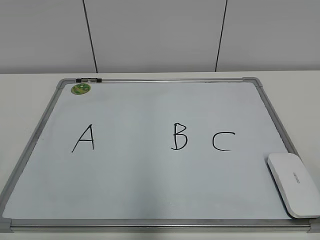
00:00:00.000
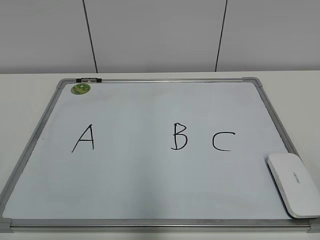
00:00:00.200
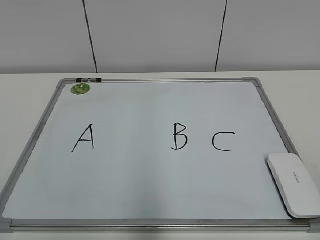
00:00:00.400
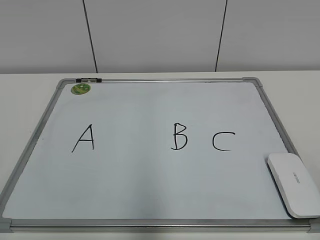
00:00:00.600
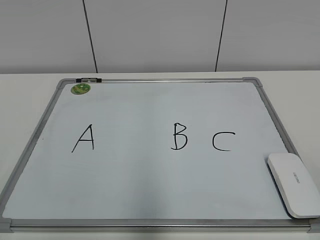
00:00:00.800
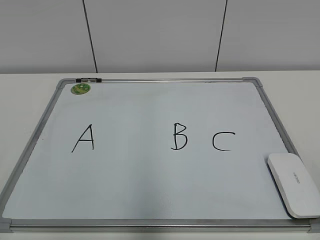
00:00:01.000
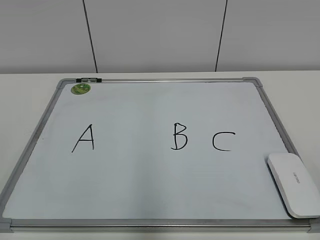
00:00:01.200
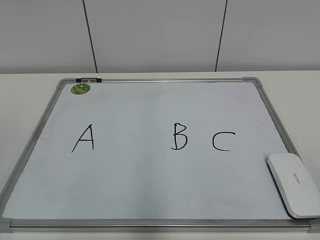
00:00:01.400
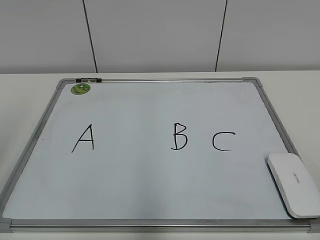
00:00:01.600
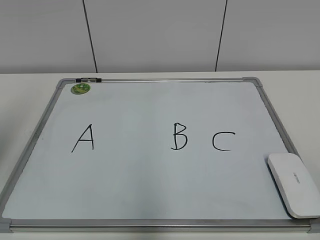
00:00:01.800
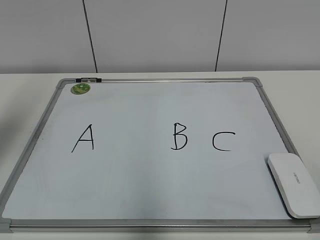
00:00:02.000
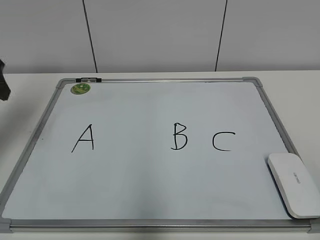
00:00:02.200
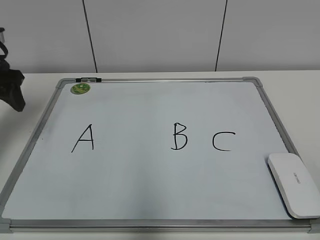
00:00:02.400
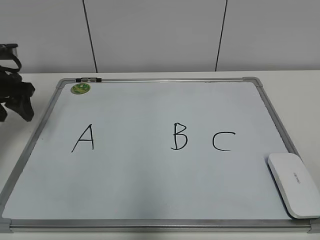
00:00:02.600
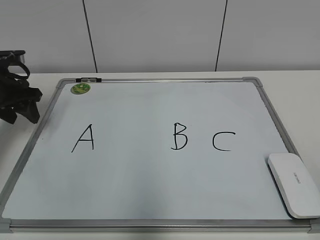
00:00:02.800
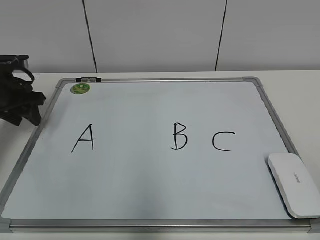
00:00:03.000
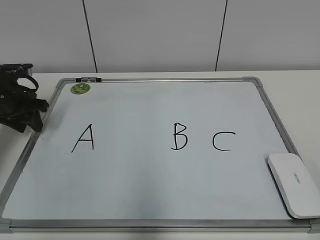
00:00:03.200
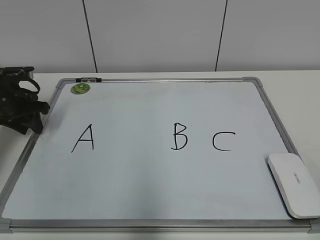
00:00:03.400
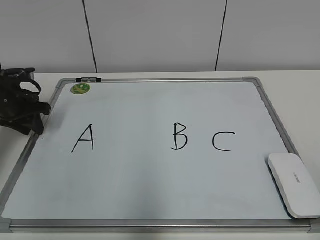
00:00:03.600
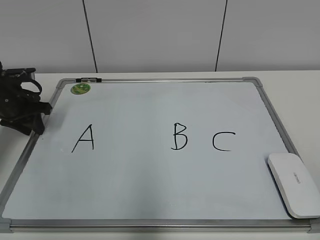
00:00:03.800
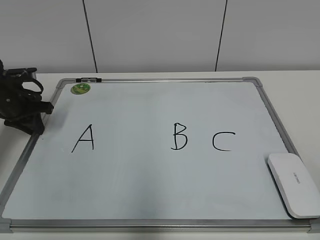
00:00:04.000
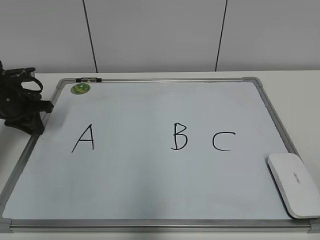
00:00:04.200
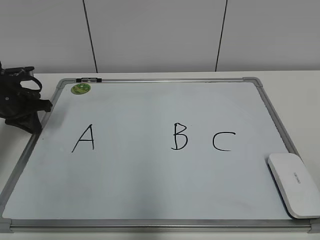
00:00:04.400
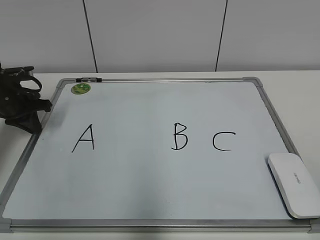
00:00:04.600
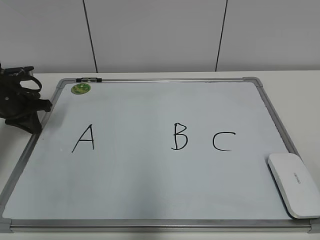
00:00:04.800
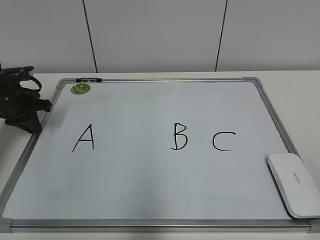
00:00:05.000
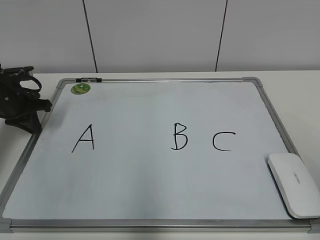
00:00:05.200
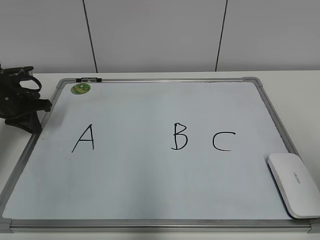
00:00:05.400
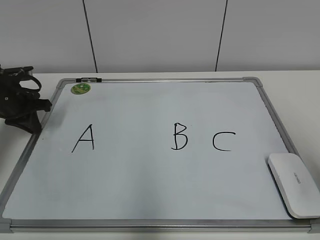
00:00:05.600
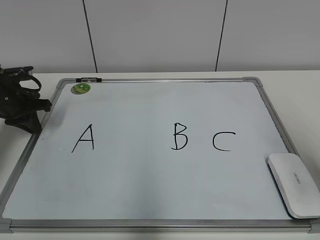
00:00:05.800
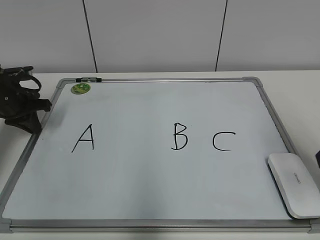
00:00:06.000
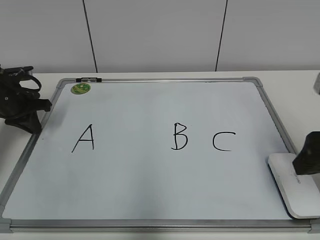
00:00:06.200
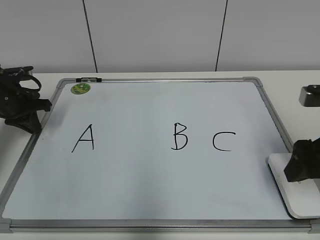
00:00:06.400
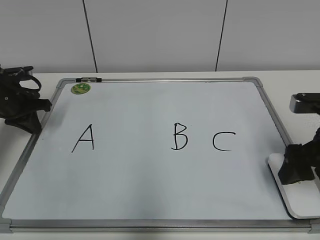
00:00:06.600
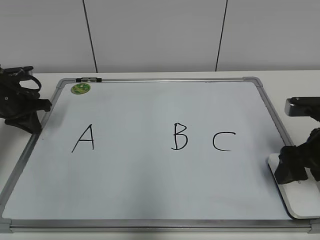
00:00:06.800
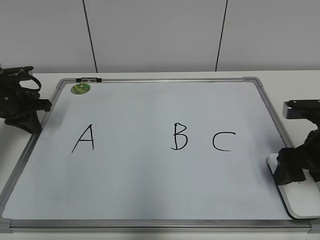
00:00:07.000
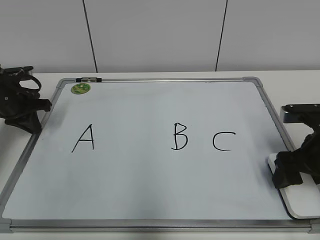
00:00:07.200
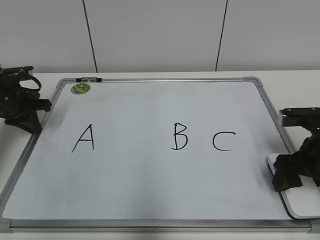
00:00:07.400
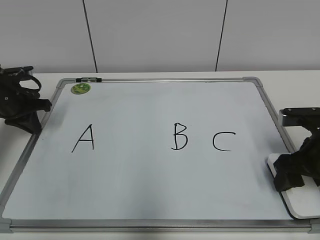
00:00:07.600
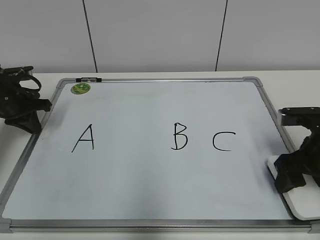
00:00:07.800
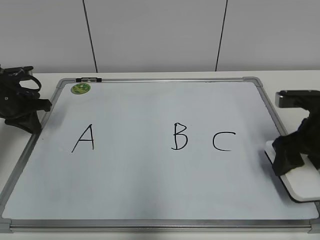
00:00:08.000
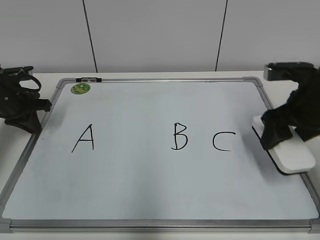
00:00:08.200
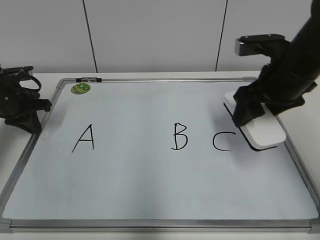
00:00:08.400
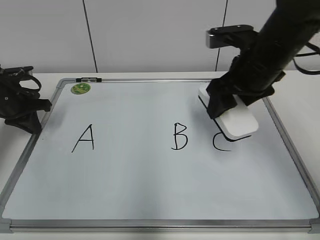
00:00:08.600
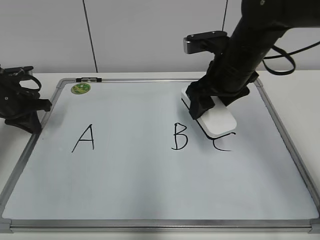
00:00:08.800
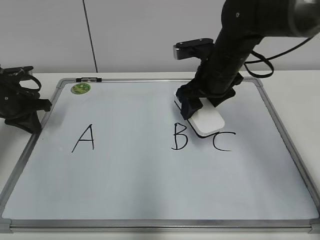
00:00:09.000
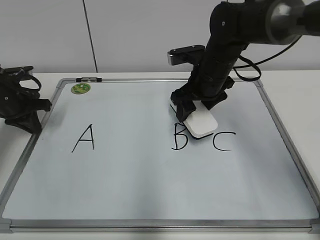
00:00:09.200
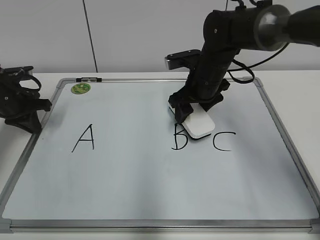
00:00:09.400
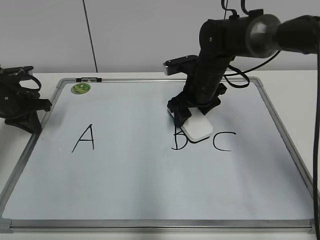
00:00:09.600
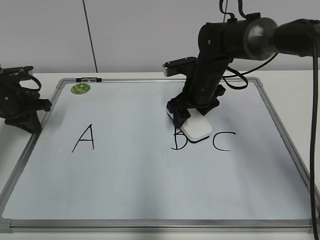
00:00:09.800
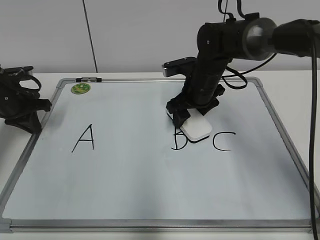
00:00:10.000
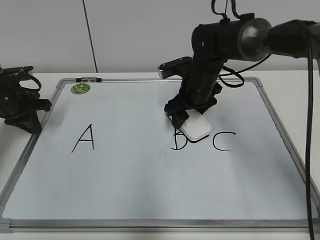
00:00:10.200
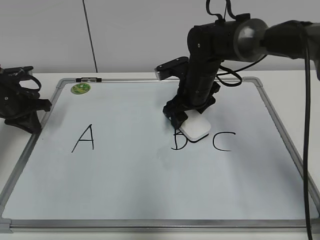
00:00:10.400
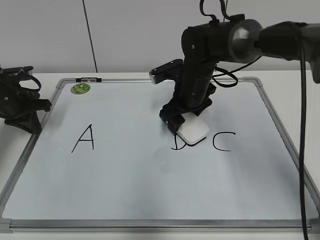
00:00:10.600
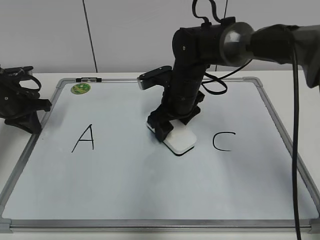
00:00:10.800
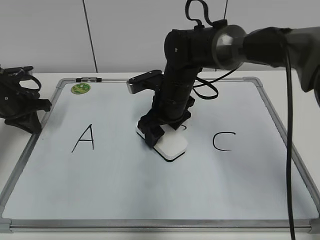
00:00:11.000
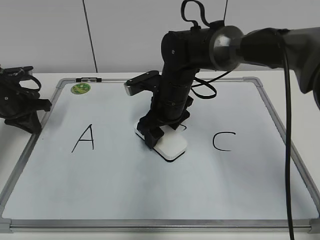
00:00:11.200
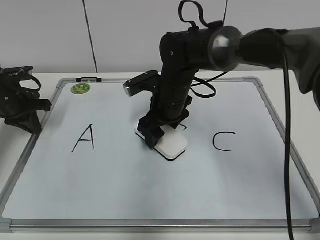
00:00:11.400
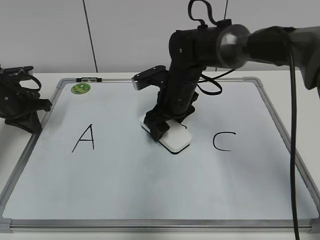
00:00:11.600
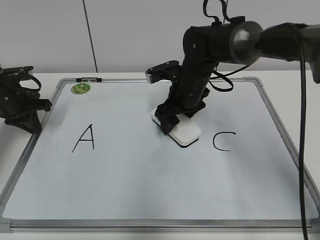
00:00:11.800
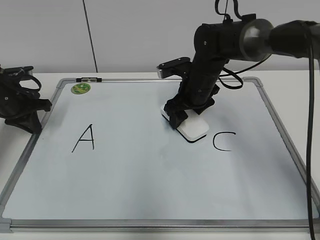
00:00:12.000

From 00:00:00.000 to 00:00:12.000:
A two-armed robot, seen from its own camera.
Task of the whole recording: pick up the eraser on the blackboard and erase the letter "B".
Step, from 00:00:00.000 to 00:00:04.600: Hold the drawing board steady with your left hand.
Step, from 00:00:04.800 to 00:00:07.600: Grab the eraser with your right hand.
From 00:00:01.600 to 00:00:03.000: The left gripper travels forward and downward by approximately 35 cm.
From 00:00:03.000 to 00:00:04.400: The left gripper closes its fingers.
From 00:00:04.400 to 00:00:06.000: The right gripper travels forward by approximately 20 cm.
From 00:00:06.000 to 00:00:07.600: The right gripper is displaced downward and forward by roughly 15 cm, and closes.
From 00:00:07.600 to 00:00:09.000: The right gripper moves to the left, forward and upward, some 20 cm.
From 00:00:09.000 to 00:00:10.400: The right gripper moves downward, approximately 5 cm.

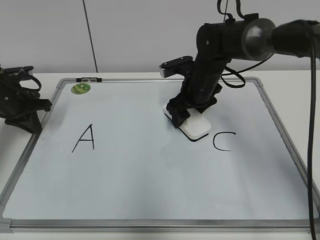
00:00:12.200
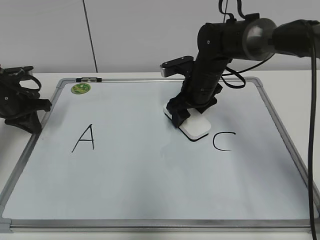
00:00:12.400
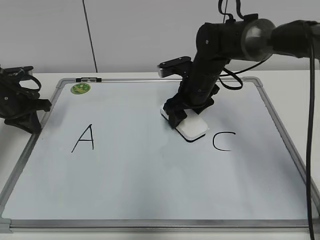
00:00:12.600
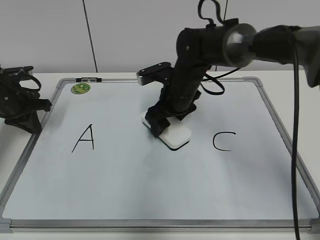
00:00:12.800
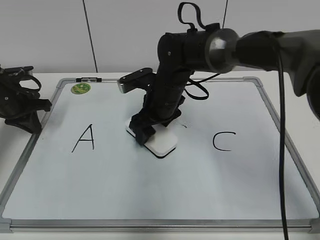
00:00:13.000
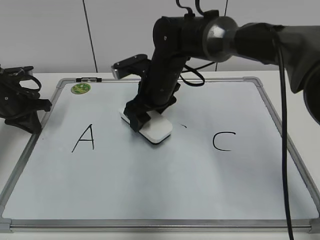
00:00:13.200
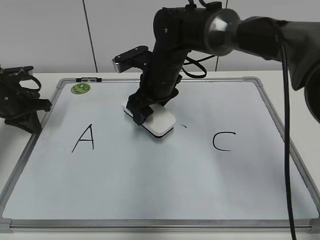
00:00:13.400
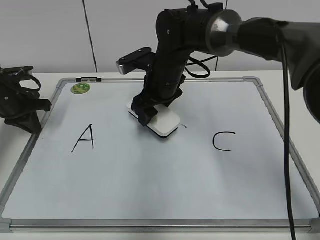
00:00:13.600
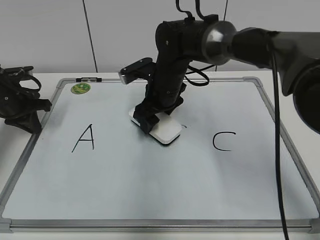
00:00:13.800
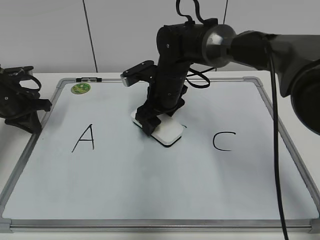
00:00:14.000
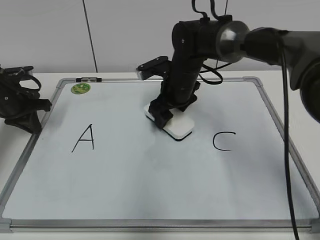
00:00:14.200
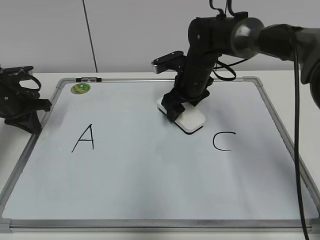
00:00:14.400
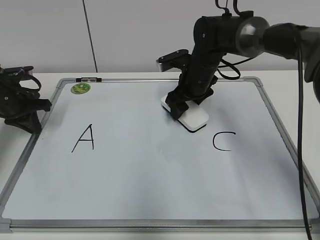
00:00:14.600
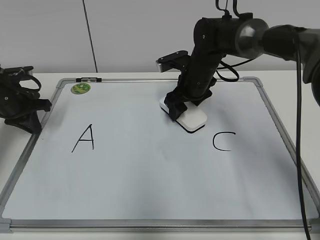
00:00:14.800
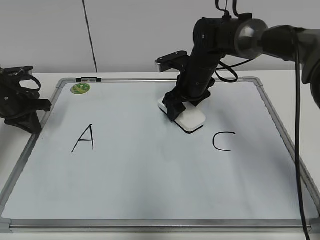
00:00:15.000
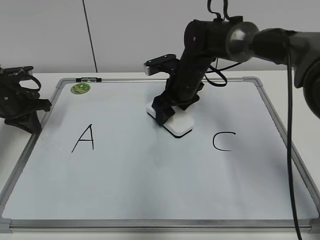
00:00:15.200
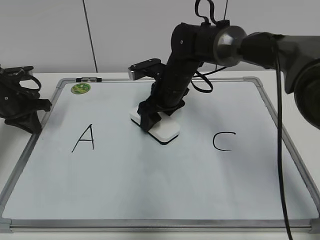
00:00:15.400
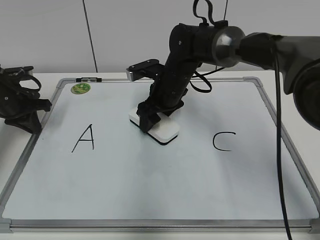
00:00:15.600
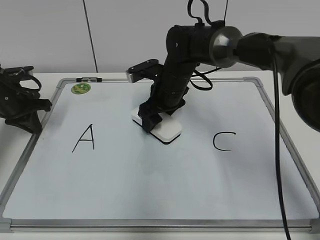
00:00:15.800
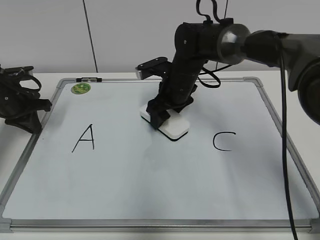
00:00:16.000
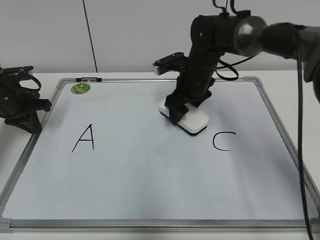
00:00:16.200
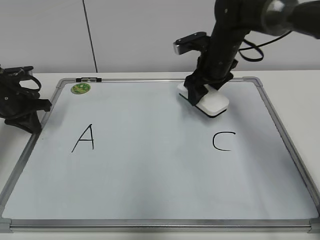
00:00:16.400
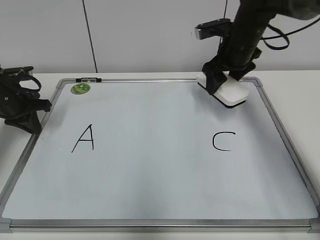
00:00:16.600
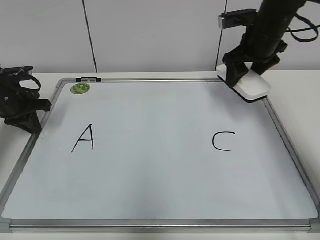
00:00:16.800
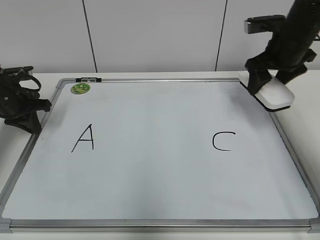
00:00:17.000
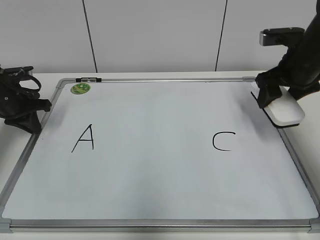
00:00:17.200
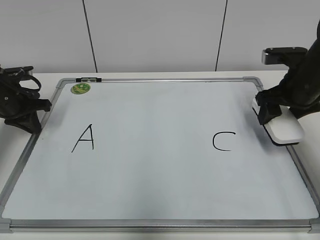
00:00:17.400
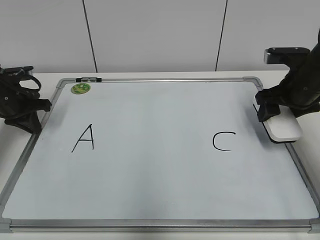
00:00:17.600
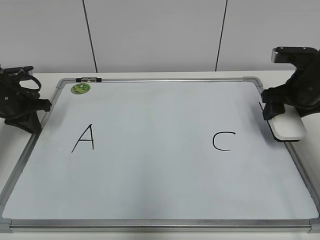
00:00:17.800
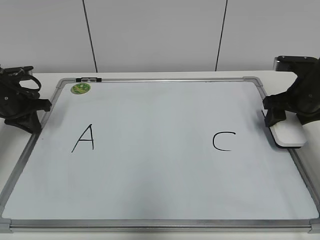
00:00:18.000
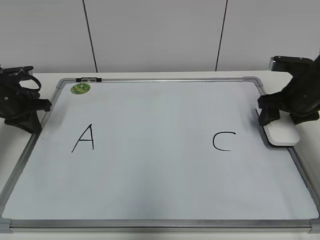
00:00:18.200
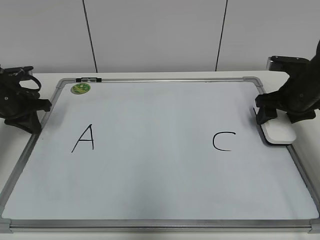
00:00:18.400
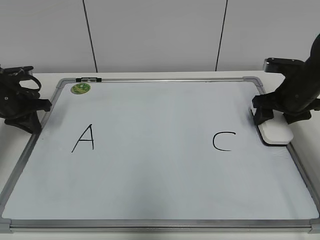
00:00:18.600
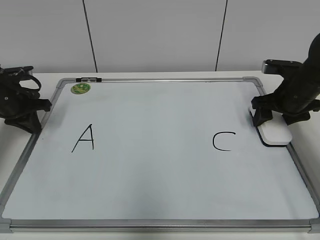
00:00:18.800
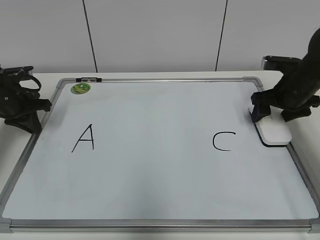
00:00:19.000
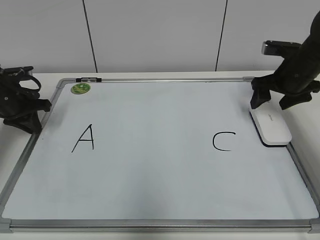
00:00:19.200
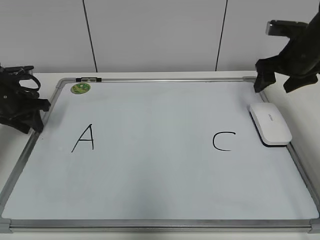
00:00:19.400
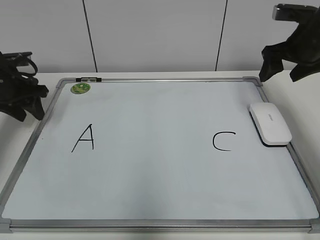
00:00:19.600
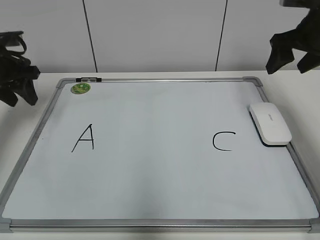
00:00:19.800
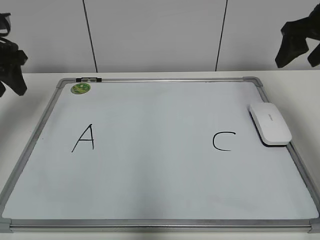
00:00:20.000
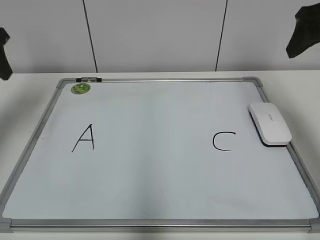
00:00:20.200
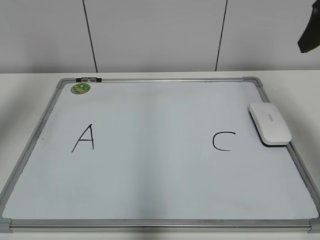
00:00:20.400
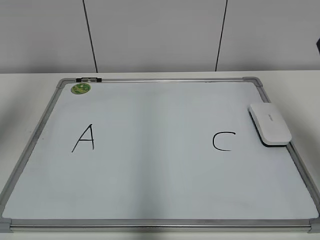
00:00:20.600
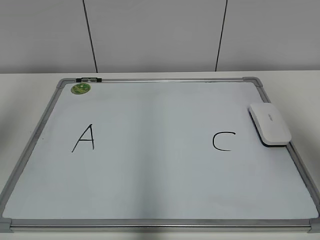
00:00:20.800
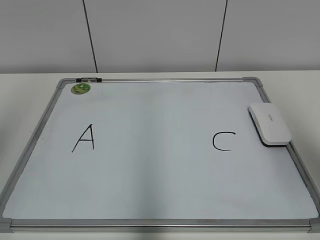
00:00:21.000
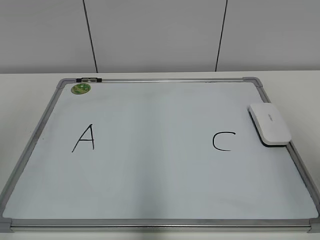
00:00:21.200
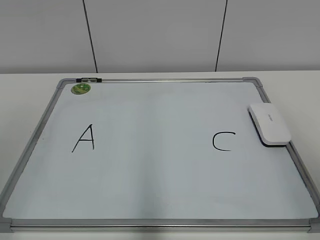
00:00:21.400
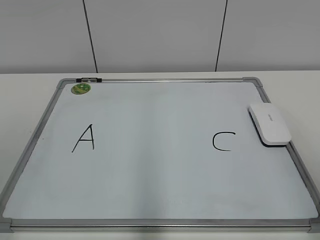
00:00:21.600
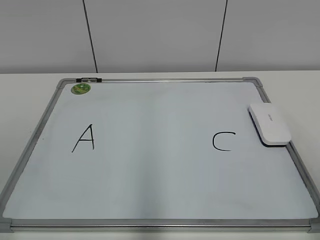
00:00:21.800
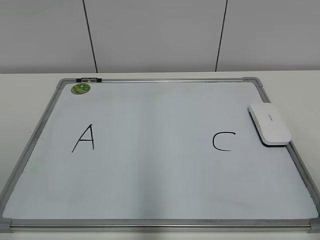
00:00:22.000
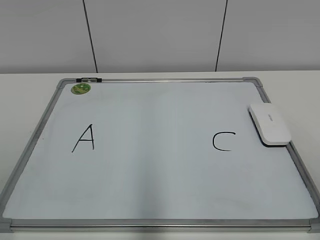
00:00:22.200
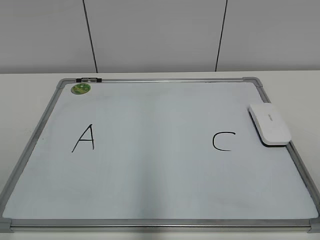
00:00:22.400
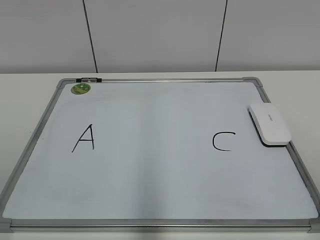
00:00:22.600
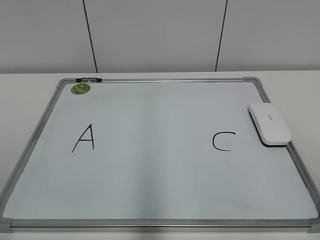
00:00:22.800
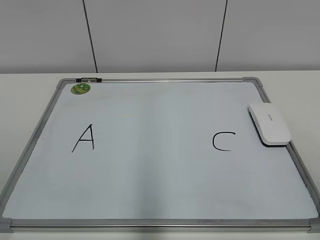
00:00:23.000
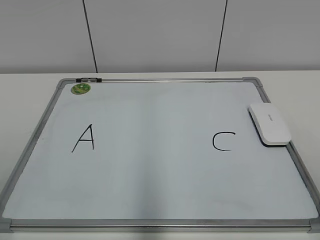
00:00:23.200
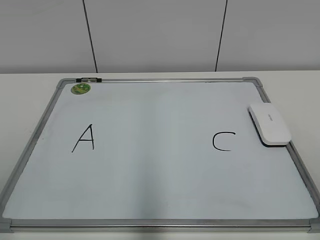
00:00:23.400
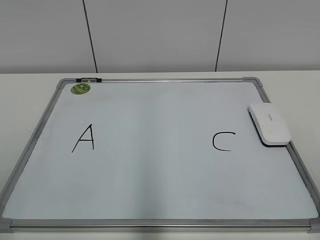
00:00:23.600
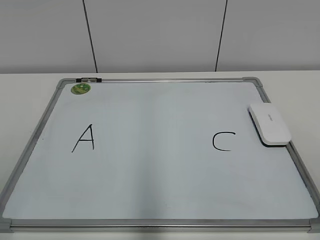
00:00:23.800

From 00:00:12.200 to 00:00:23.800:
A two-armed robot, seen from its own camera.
Task of the whole recording: pick up the eraser on the blackboard and erase the letter "B".
Step, from 00:00:12.200 to 00:00:15.800: Erase the letter B with your right hand.
Step, from 00:00:16.200 to 00:00:18.800: Put down the eraser with your right hand.
From 00:00:12.200 to 00:00:13.600: The right gripper moves to the left, approximately 10 cm.
From 00:00:13.600 to 00:00:15.000: The right gripper moves to the right, some 5 cm.
From 00:00:15.000 to 00:00:16.600: The right gripper travels to the right and upward by about 10 cm.
From 00:00:16.600 to 00:00:18.000: The right gripper heads to the right, backward and downward, covering roughly 15 cm.
From 00:00:18.000 to 00:00:19.400: The right gripper ends up approximately 5 cm from where it was, and opens up.
From 00:00:19.400 to 00:00:21.000: The right gripper is displaced backward and upward by roughly 30 cm; the left gripper moves upward and backward, about 35 cm.
From 00:00:21.000 to 00:00:22.400: The right gripper is displaced downward and backward by about 15 cm.
